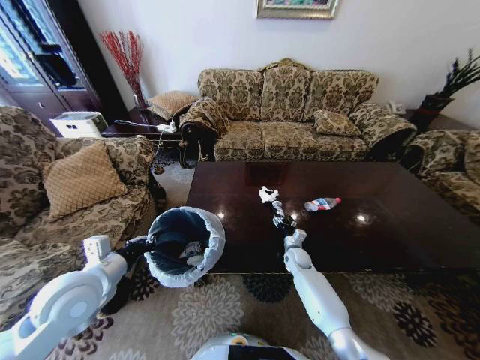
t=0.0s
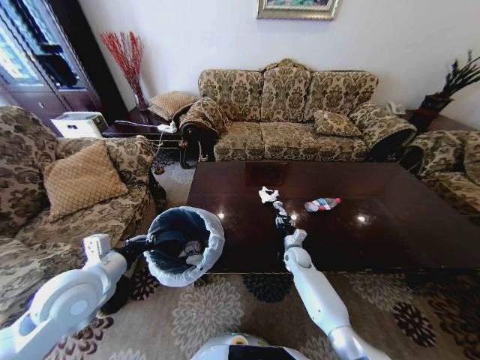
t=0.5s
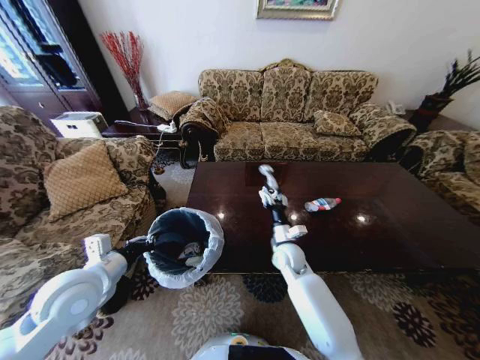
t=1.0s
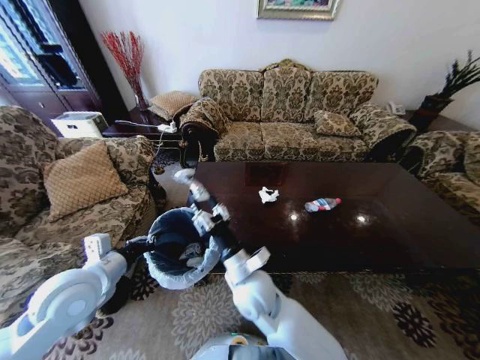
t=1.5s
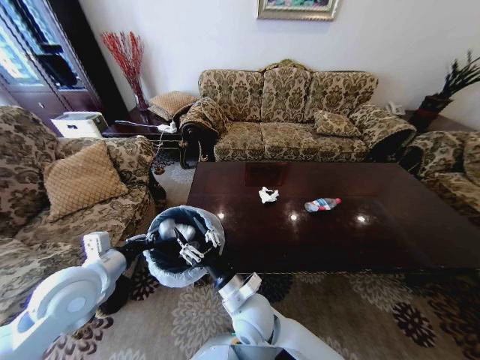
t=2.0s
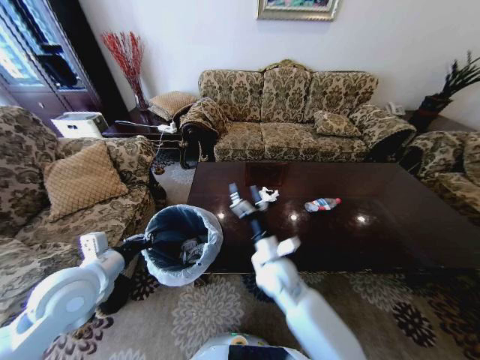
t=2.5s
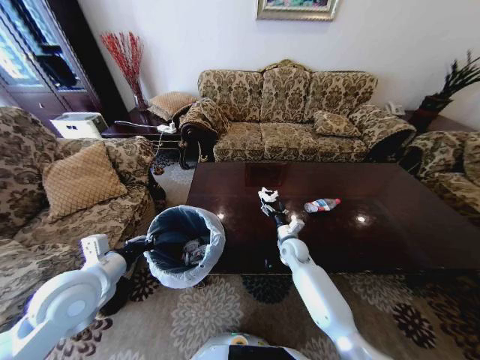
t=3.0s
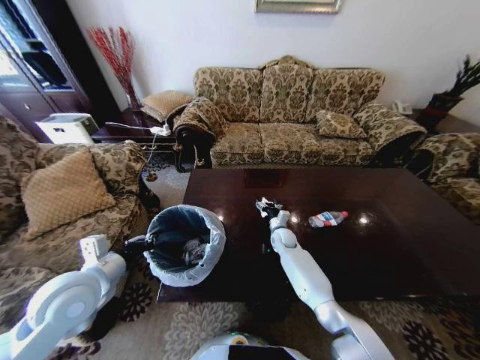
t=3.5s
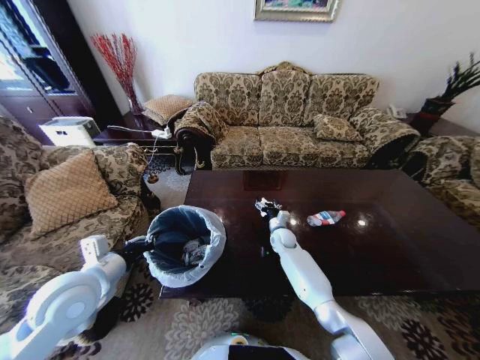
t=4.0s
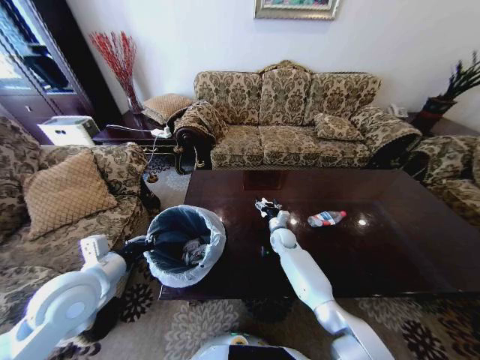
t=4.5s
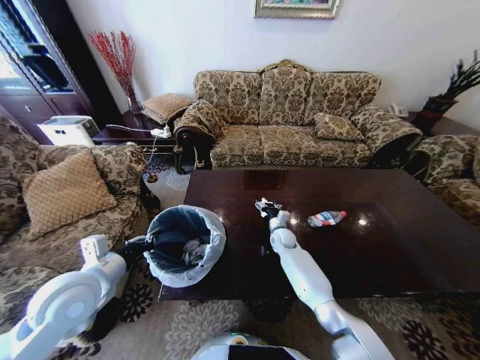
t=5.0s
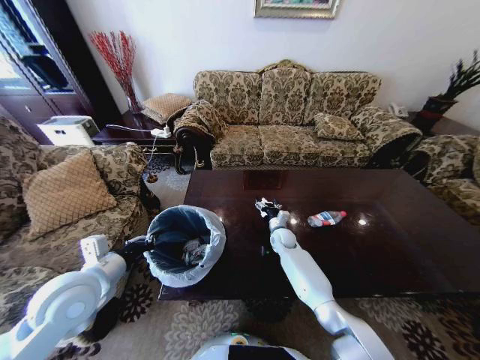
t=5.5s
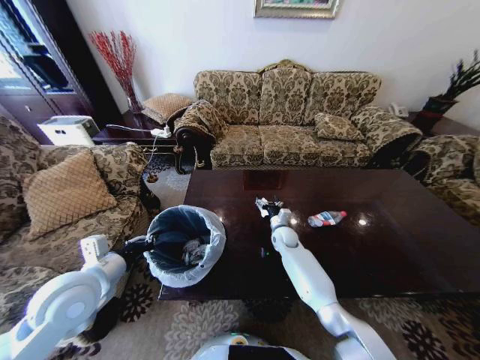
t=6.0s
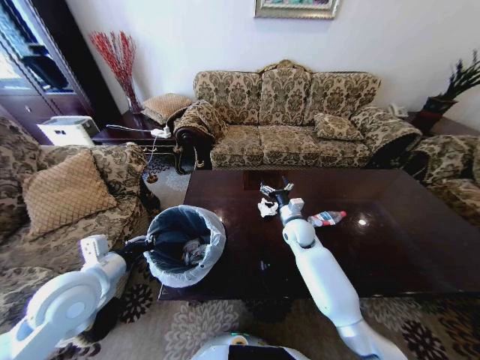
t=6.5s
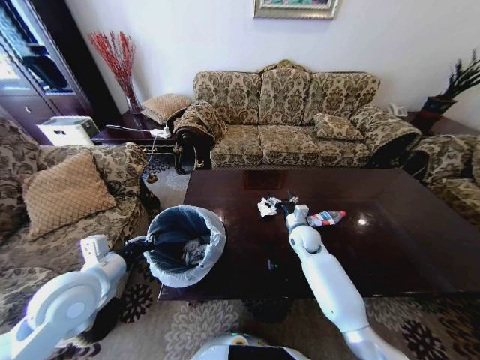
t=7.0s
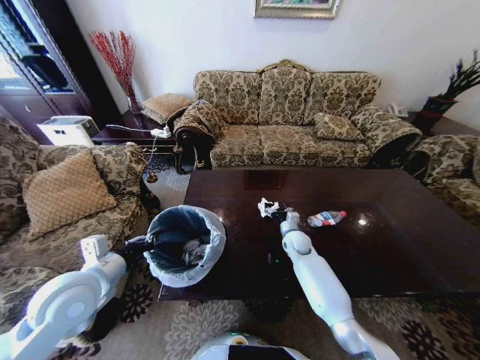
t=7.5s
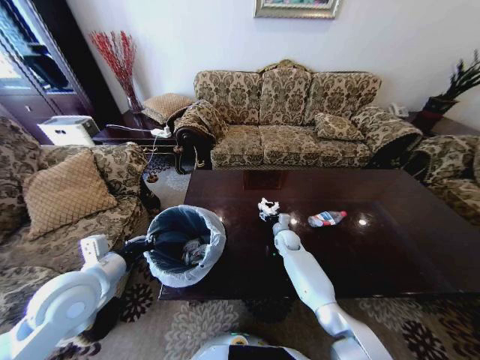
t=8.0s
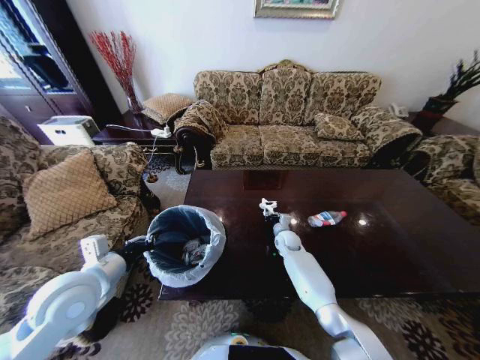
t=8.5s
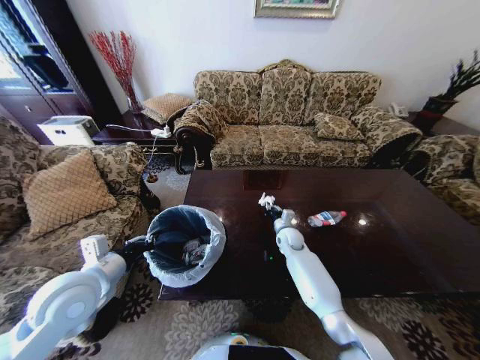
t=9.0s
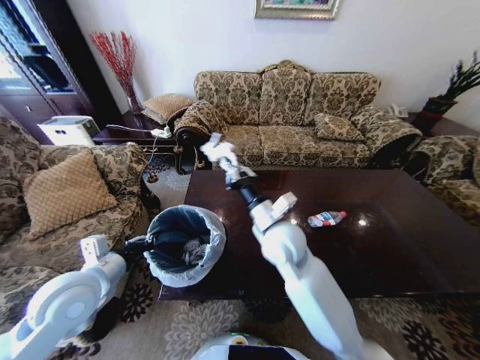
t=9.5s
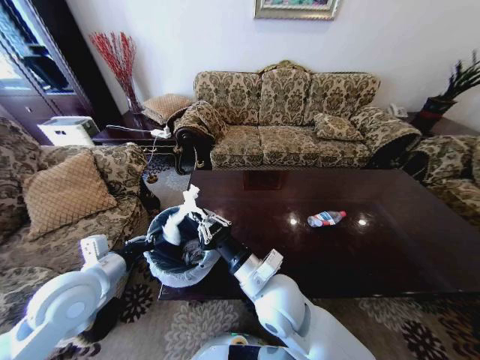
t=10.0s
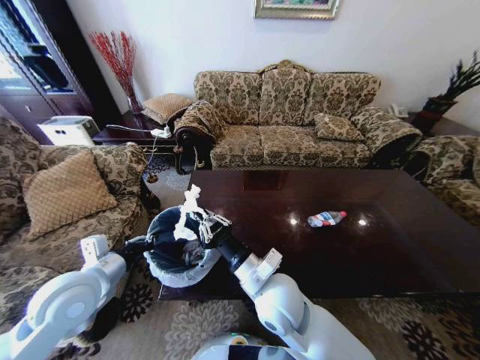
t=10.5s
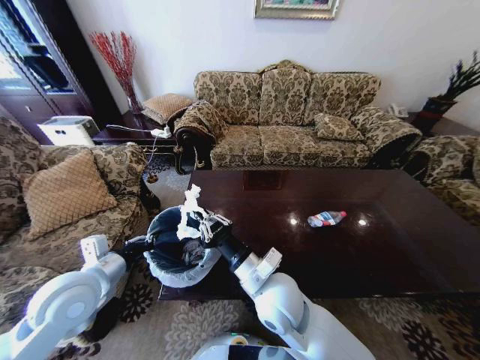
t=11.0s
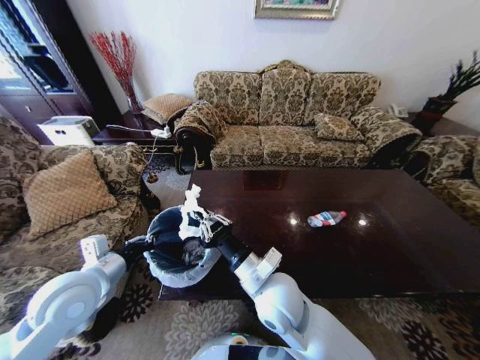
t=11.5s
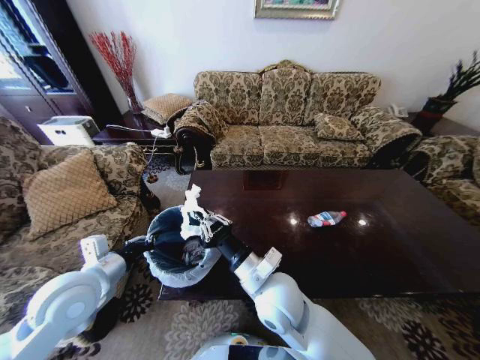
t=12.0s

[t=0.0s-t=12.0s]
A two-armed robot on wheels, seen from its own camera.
Task of the whole recording: Move to the front of the table and place the trash on the table into the trash bin.
t=0.0s to t=2.0s: The right gripper is displaced backward, to the left and upward by about 35 cm.
t=2.0s to t=4.0s: The right gripper is displaced forward and to the right by roughly 30 cm, and opens its fingers.
t=4.0s to t=6.0s: There are only small adjustments of the grippers.
t=6.0s to t=8.0s: The right gripper reaches about 10 cm upward, then returns.
t=8.0s to t=10.0s: The right gripper travels backward, upward and to the left by approximately 35 cm, and closes its fingers.
t=10.0s to t=12.0s: Neither gripper changes place.

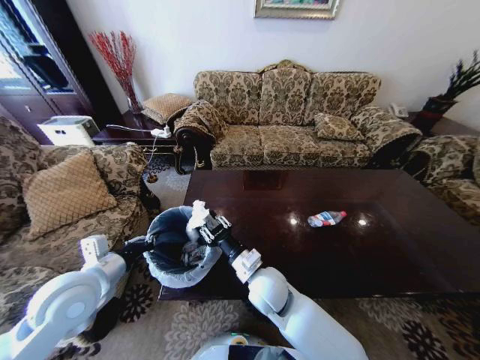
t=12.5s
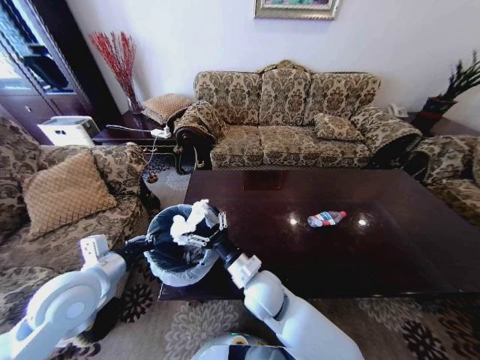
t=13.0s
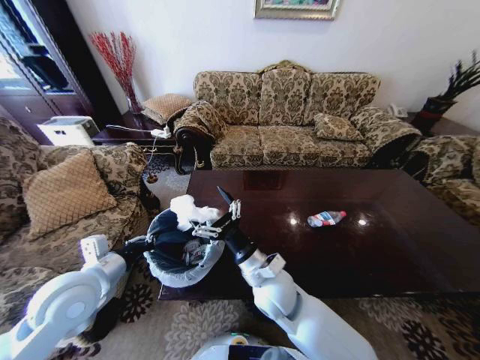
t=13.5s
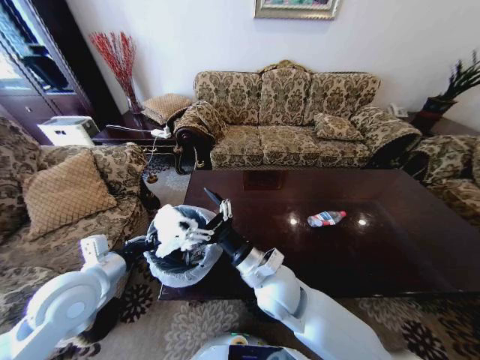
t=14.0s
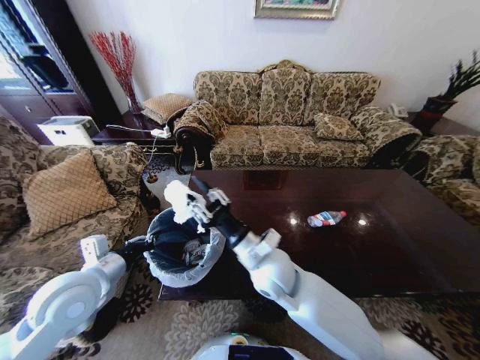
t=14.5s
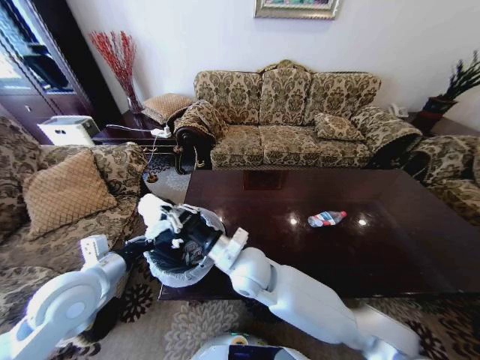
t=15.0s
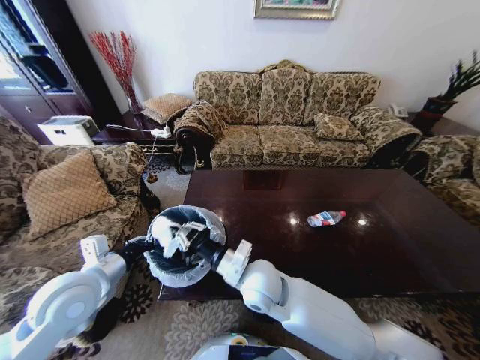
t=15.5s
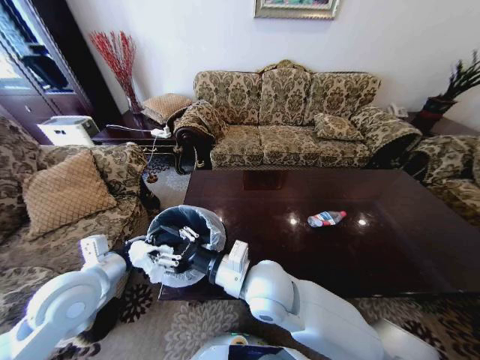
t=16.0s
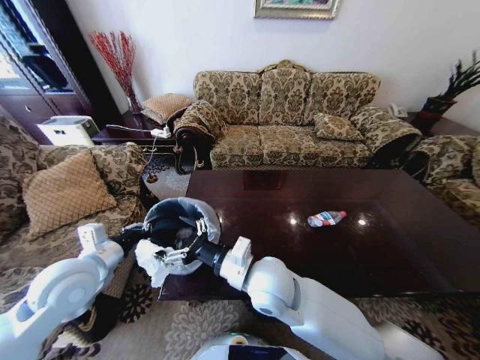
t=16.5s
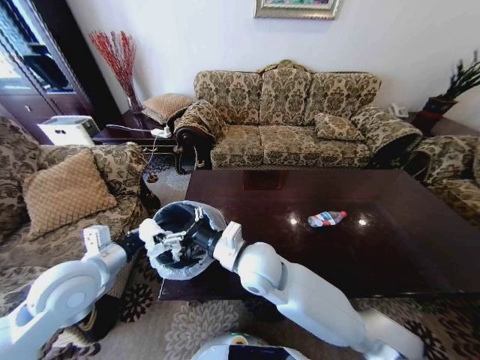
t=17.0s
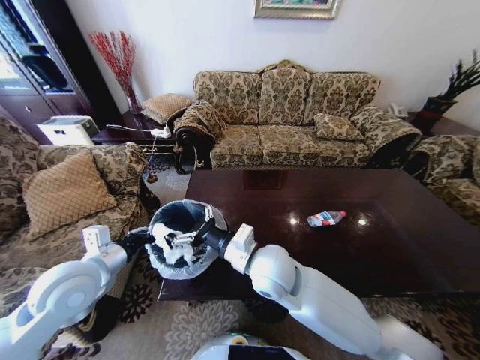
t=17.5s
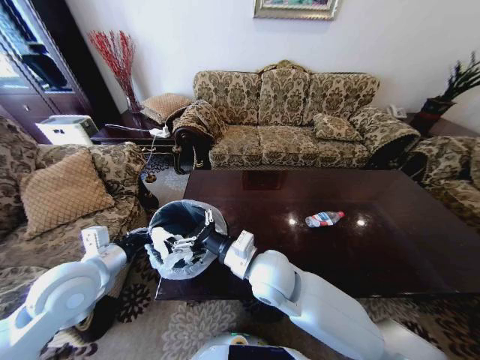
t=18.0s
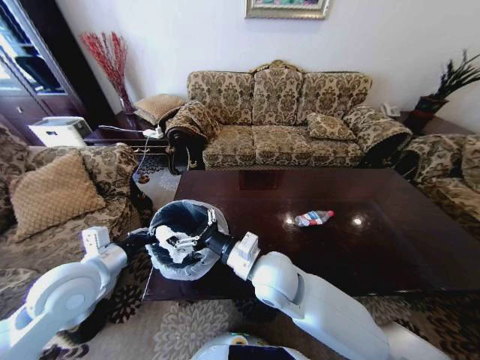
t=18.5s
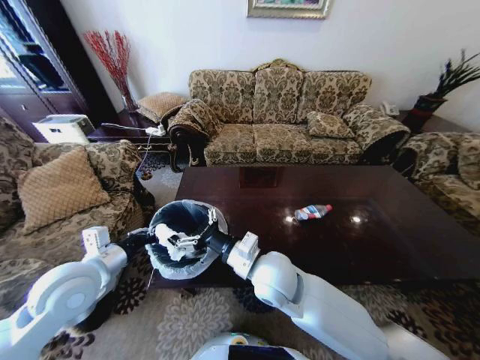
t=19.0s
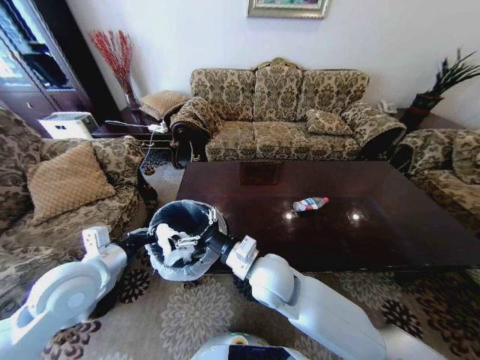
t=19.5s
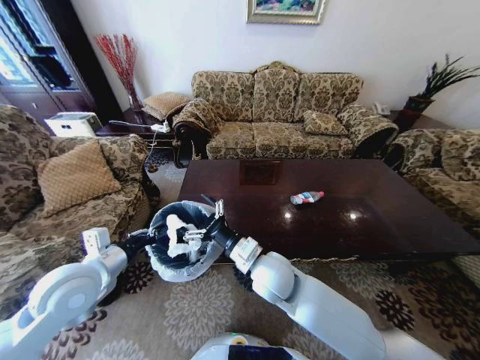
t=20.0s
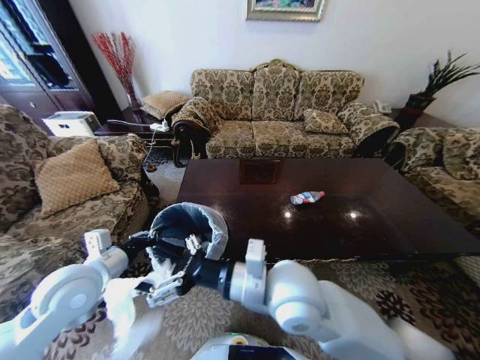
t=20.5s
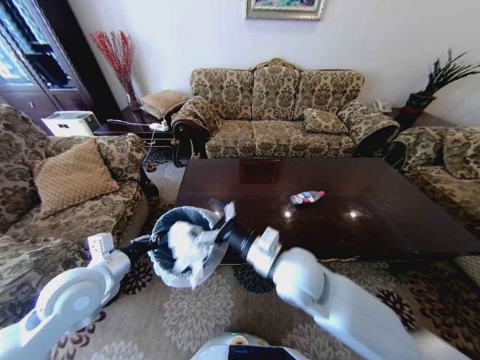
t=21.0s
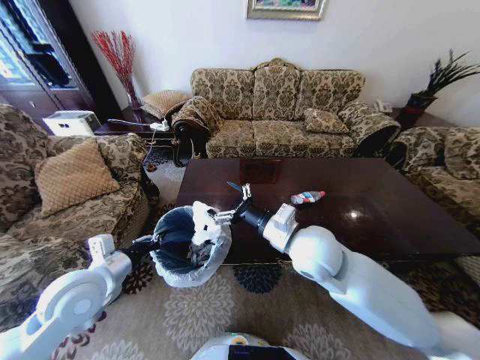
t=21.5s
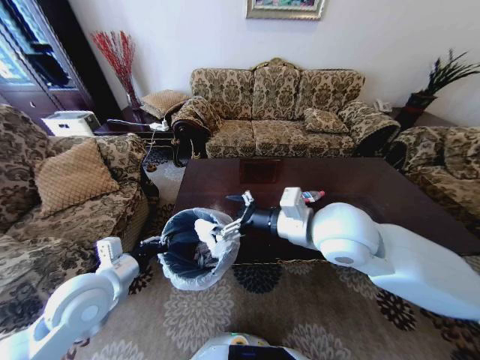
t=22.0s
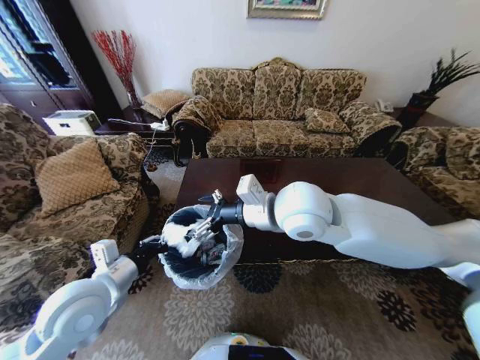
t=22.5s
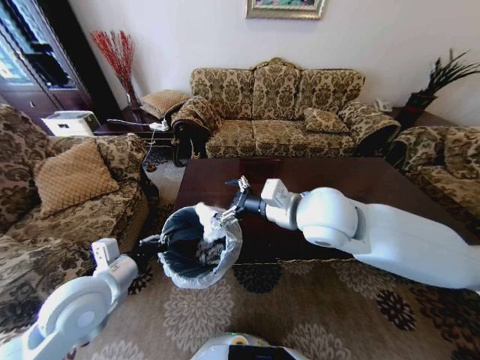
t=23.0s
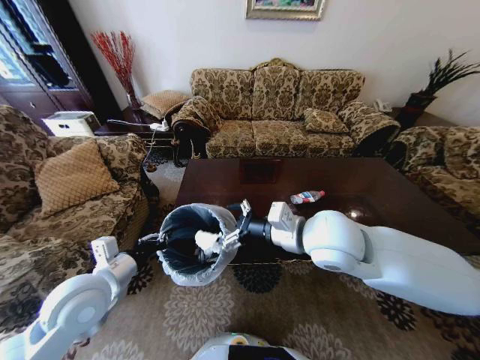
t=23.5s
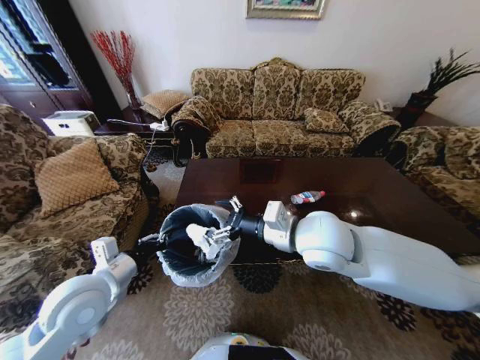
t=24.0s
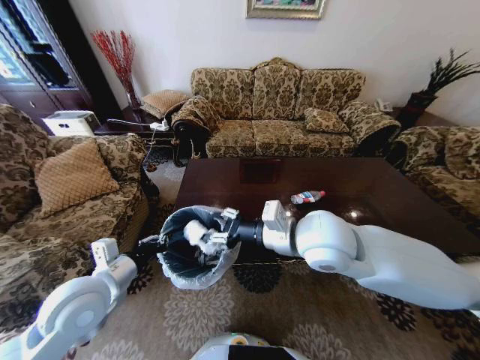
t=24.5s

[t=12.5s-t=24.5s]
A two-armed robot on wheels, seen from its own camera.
Task of the whole recording: Move to the front of the table and place the trash on the table into the trash bin.
t=12.5s to t=14.5s: The right gripper is displaced upward by about 5 cm, and opens, then closes once more.
t=14.5s to t=16.5s: The right gripper opens up.
t=18.5s to t=20.5s: The right gripper moves upward, about 5 cm.
t=20.5s to t=22.5s: The right gripper heads forward and upward, covering roughly 15 cm.
t=22.5s to t=24.5s: The right gripper shifts by approximately 5 cm, and closes.

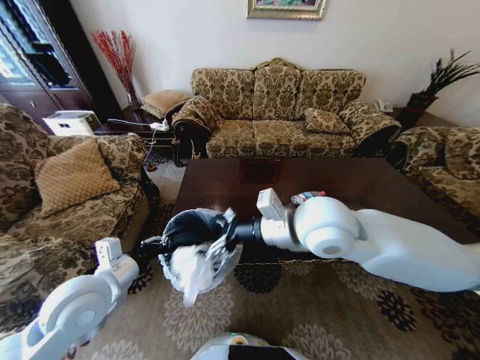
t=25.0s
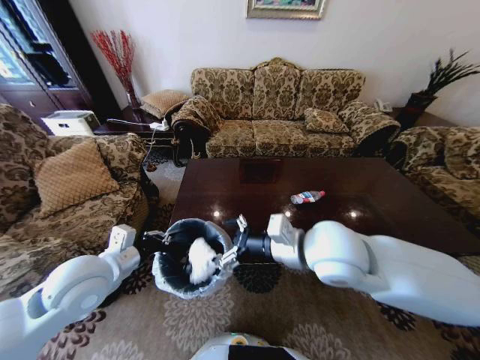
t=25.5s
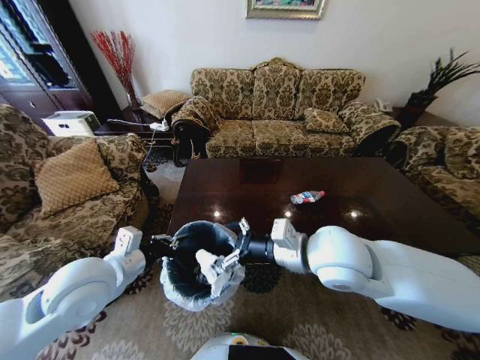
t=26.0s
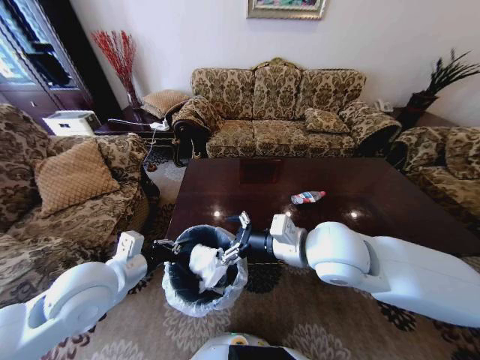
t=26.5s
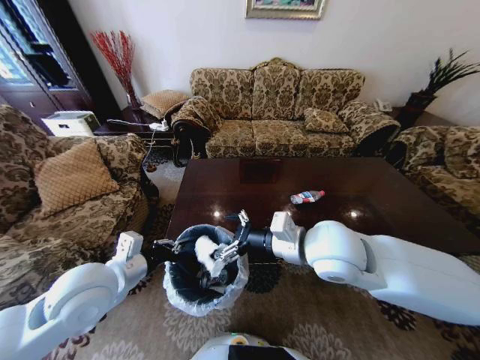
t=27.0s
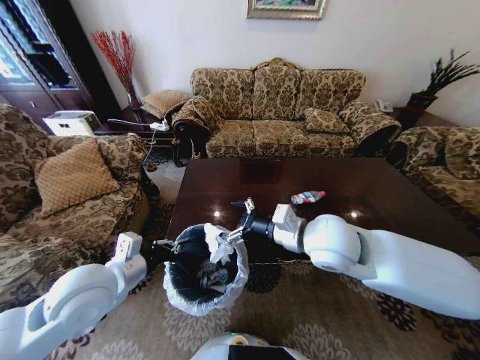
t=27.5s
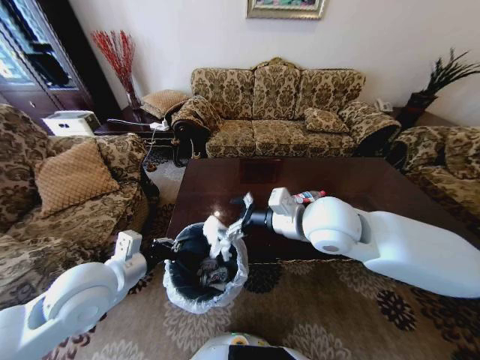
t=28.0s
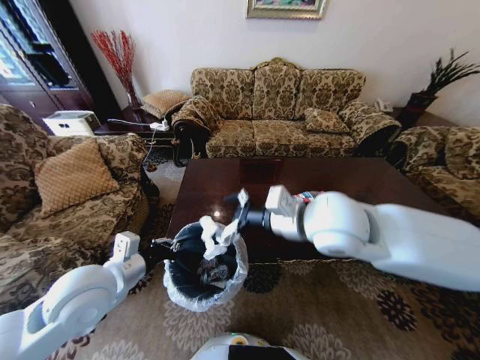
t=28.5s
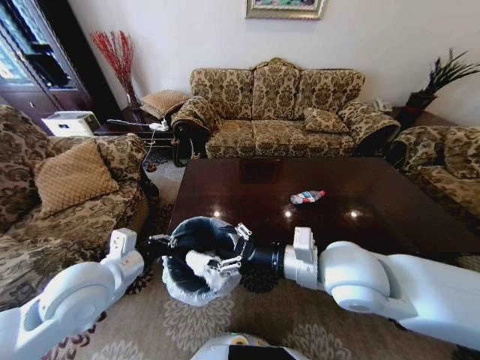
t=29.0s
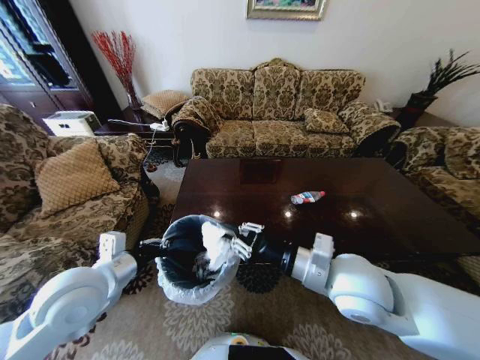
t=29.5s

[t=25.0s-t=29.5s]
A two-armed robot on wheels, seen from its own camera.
Task of the whole recording: Move to the front of the table and place the trash on the table into the trash bin.
t=25.0s to t=27.0s: The right gripper changes place by some 5 cm.
t=27.0s to t=29.5s: The right gripper shifts by some 5 cm, and closes up.
